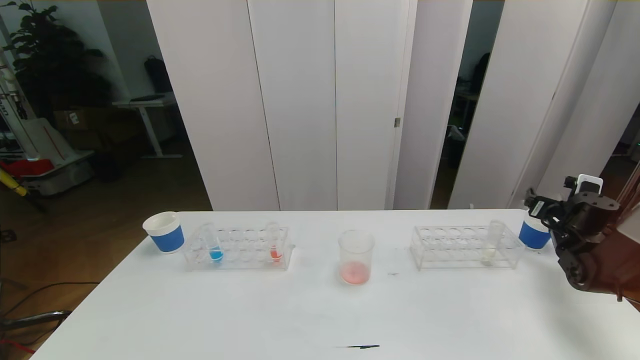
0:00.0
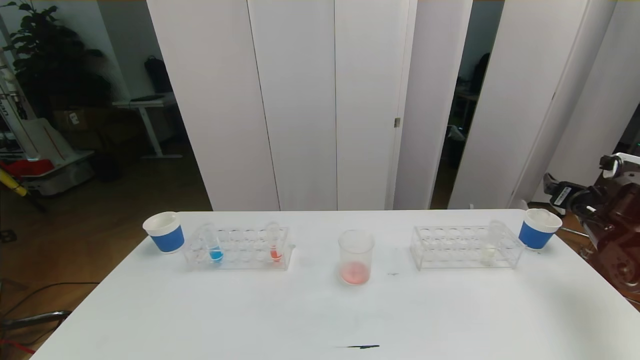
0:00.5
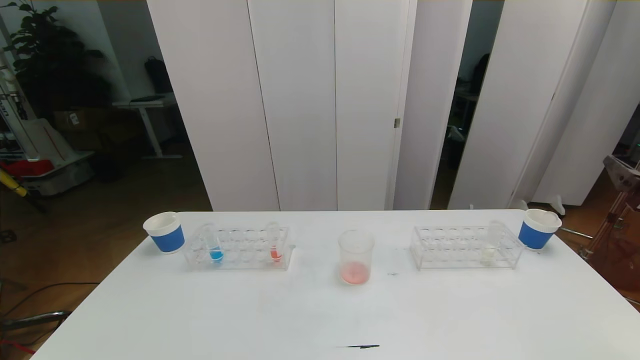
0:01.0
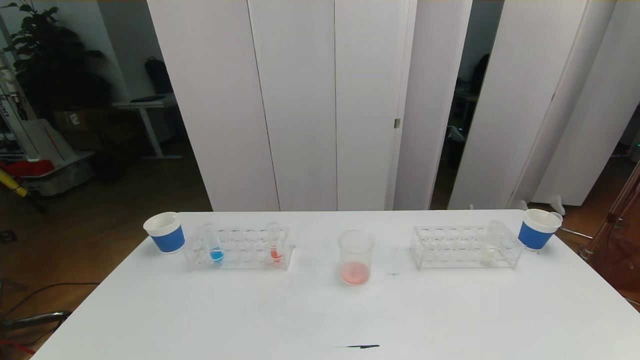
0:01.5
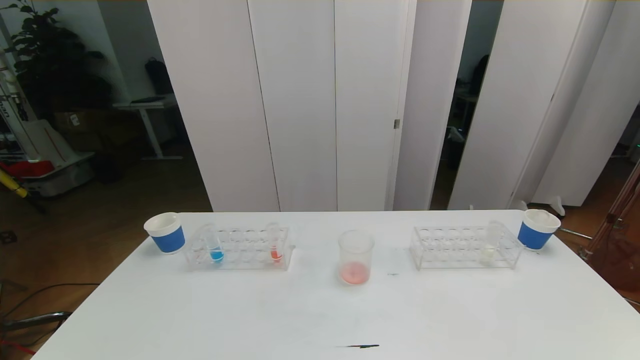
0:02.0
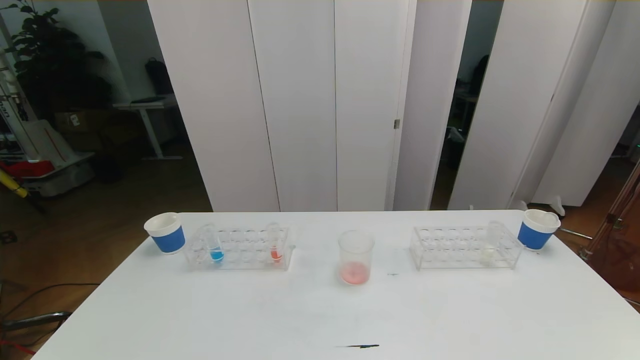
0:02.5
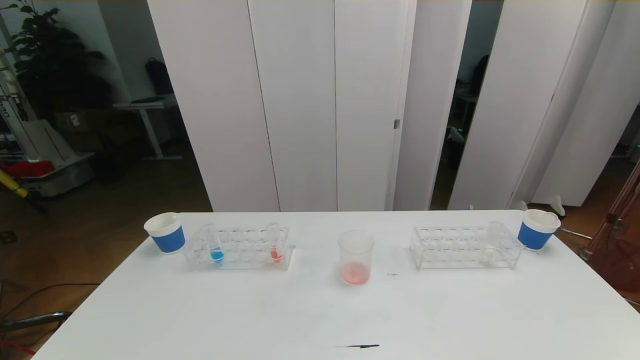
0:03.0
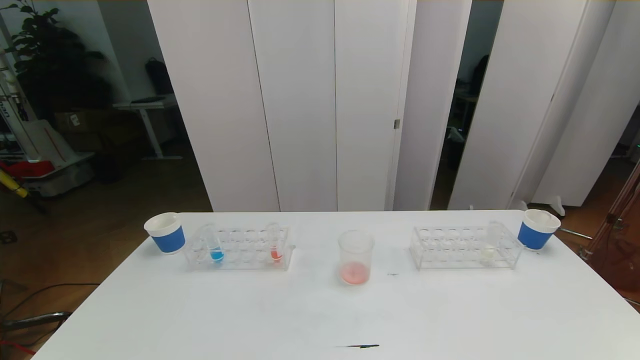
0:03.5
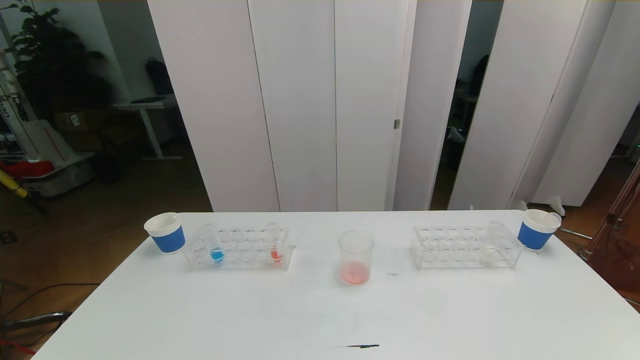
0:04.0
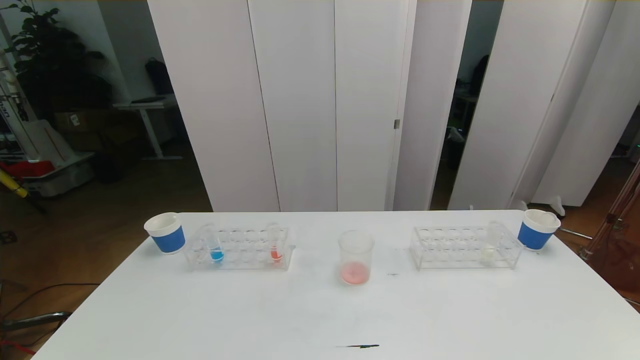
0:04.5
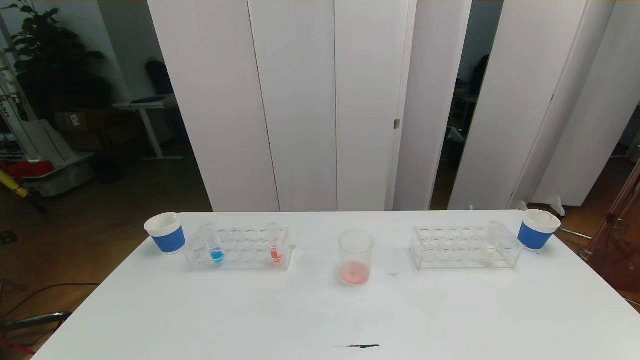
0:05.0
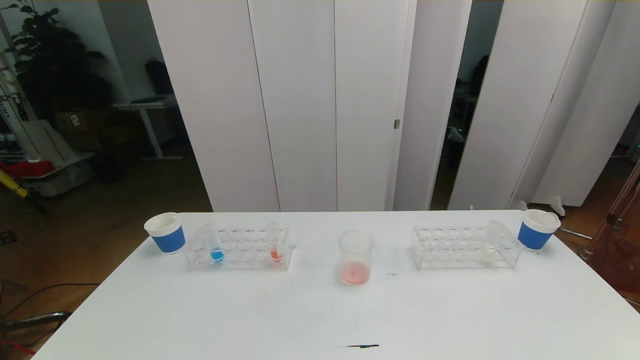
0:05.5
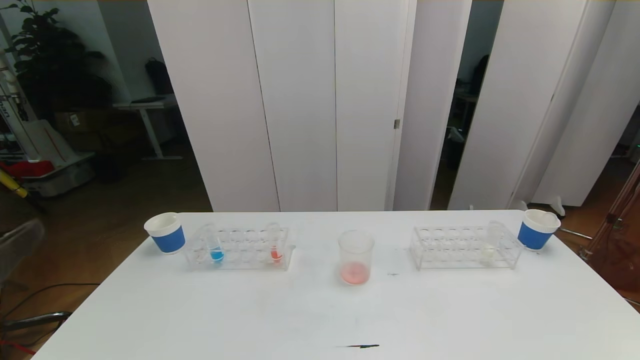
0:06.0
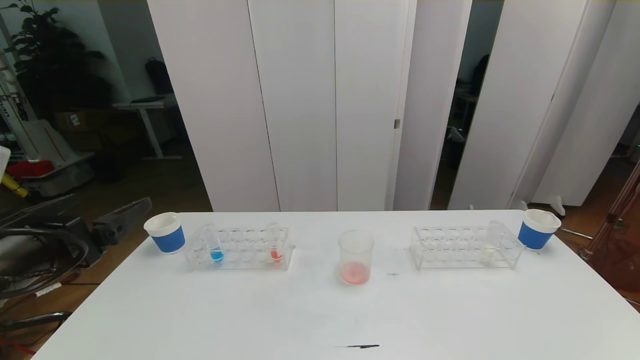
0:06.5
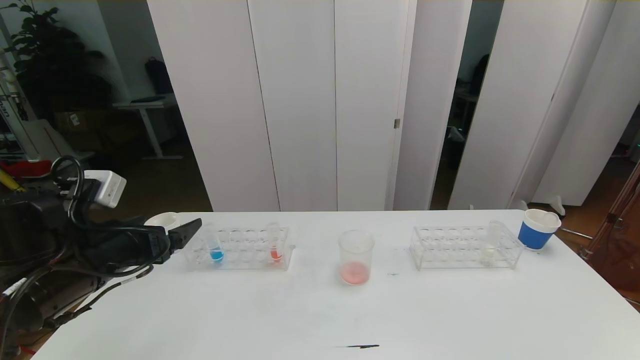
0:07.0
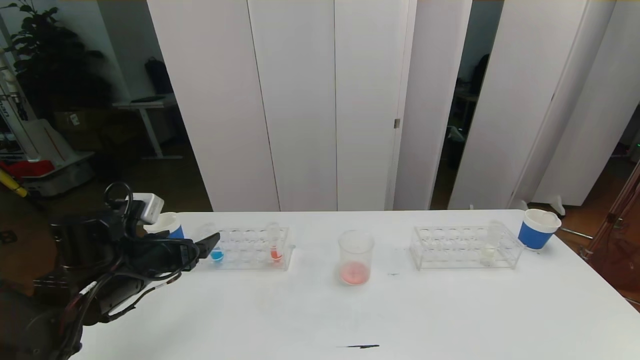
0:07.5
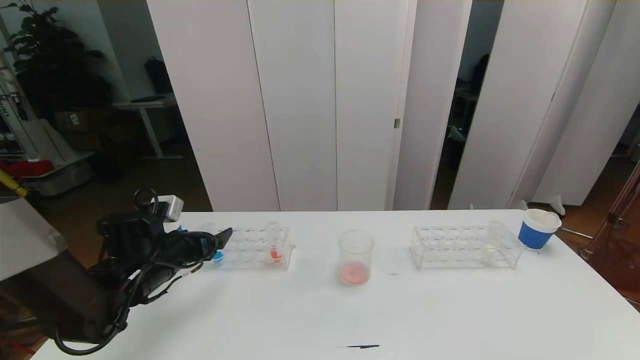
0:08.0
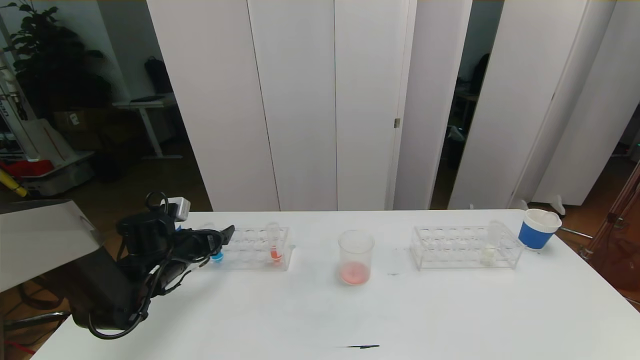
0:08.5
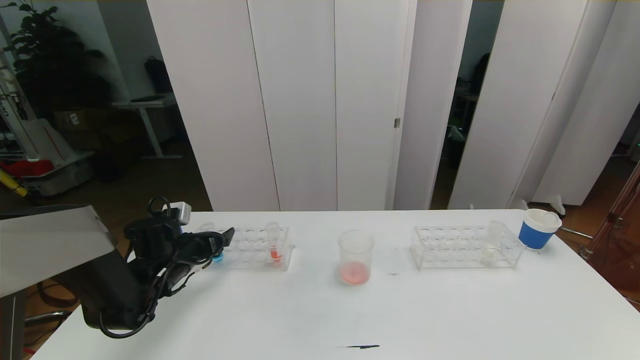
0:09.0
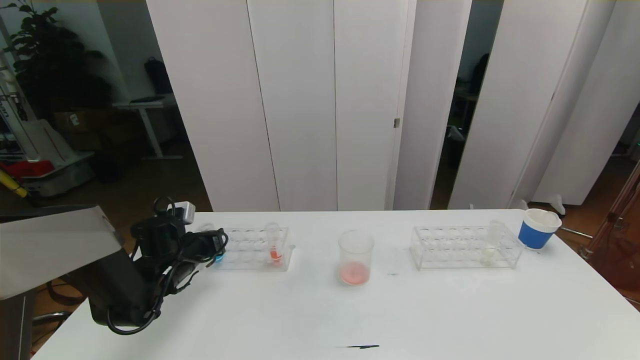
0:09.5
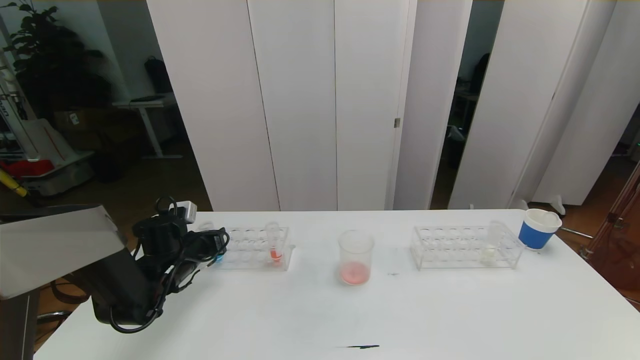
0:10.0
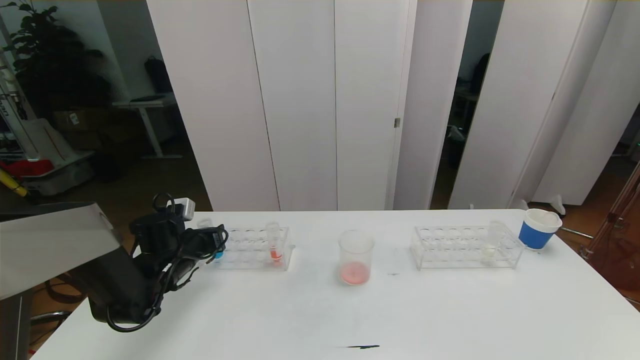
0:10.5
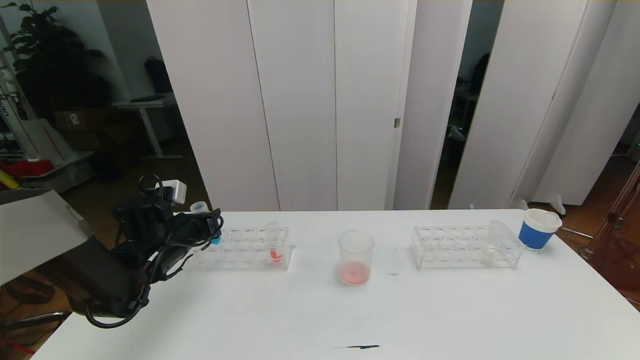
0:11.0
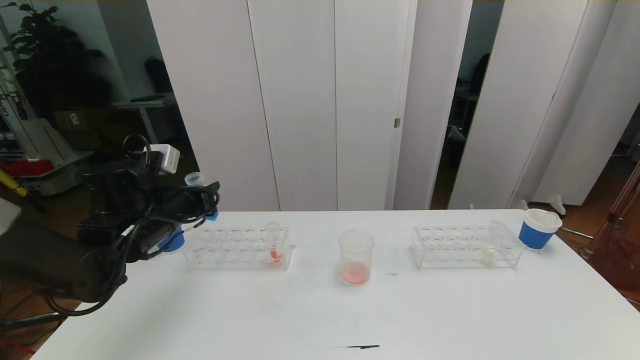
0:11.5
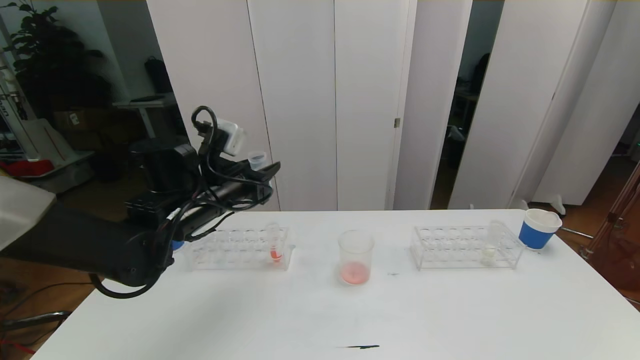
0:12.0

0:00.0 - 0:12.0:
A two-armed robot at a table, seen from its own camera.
Task of the whole recording: pick up the test tube with red pigment the test tube with blue pigment and the test tube with white pigment by grippers and pour them into the beaker.
Step, 0:00.0 - 0:04.0: Pour the red reagent into the graduated cylinder and place the test tube into the paper cup.
0:00.0 - 0:02.0: The right gripper heads backward, covering about 40 cm.
0:06.0 - 0:08.0: The left gripper travels forward and downward by some 30 cm.
0:08.0 - 0:10.0: The left gripper ends up about 5 cm from where it was, and closes.
0:10.0 - 0:12.0: The left gripper travels upward and to the right by roughly 20 cm.

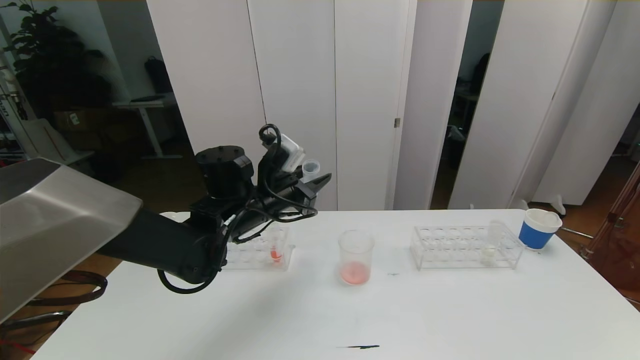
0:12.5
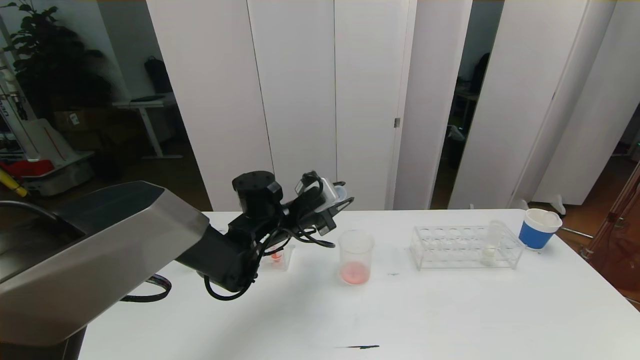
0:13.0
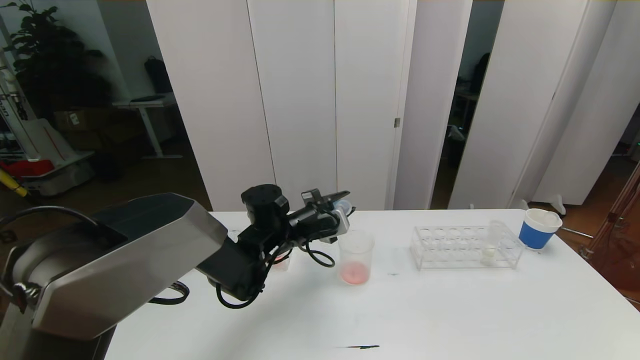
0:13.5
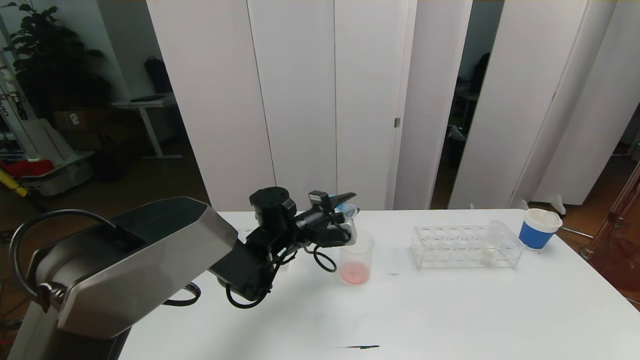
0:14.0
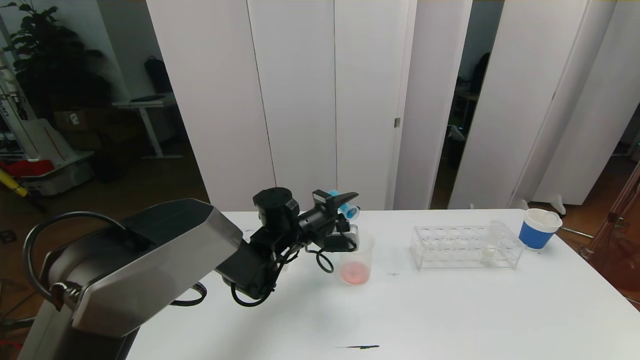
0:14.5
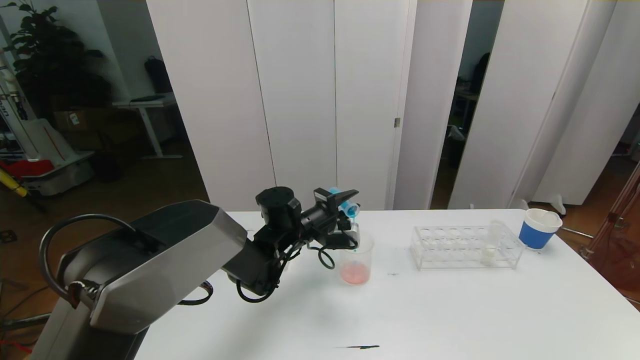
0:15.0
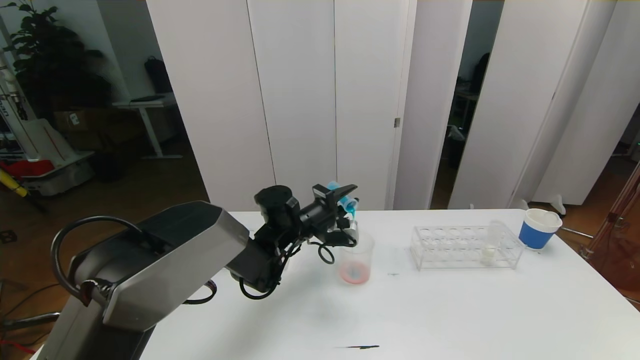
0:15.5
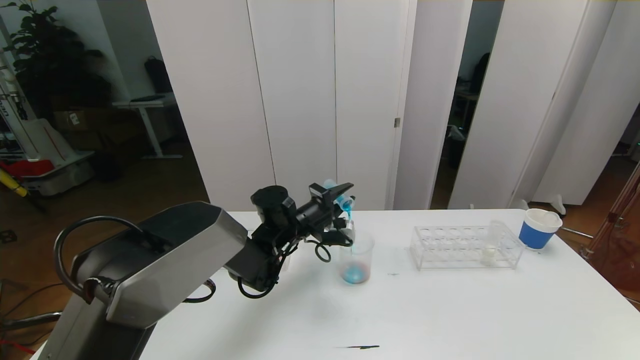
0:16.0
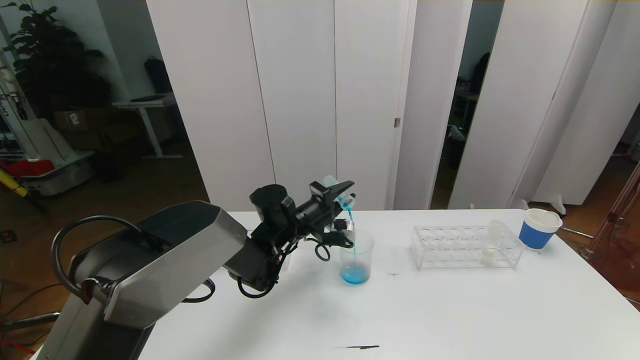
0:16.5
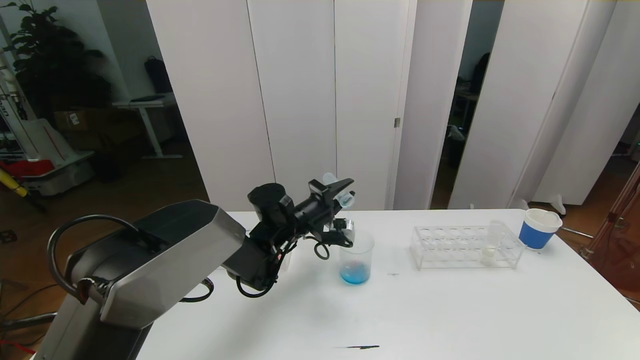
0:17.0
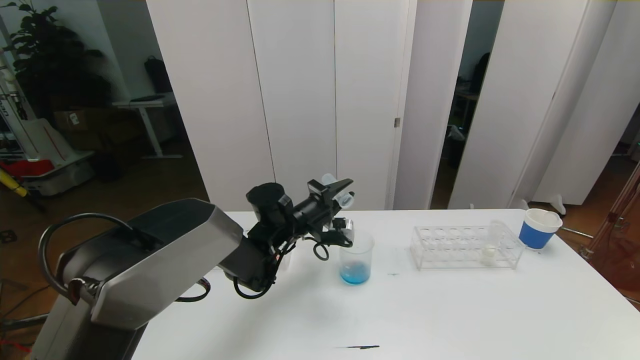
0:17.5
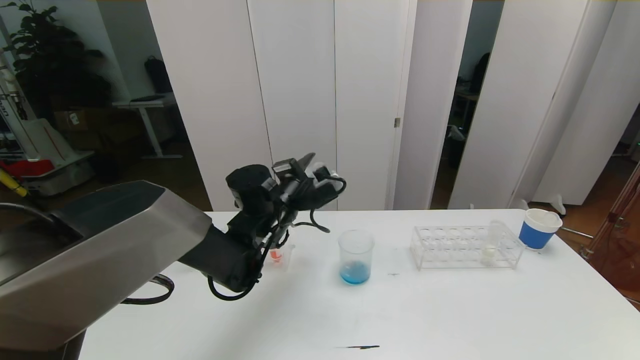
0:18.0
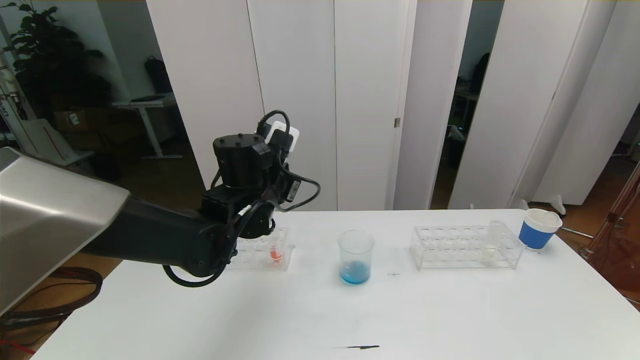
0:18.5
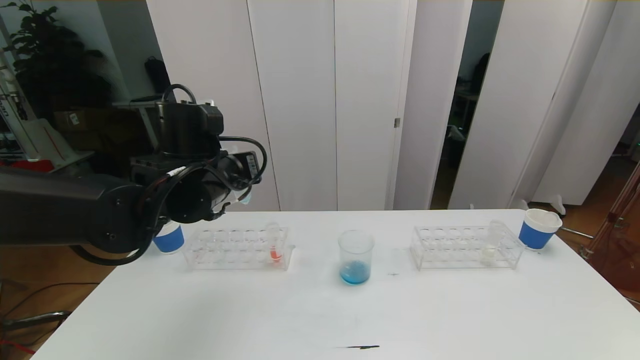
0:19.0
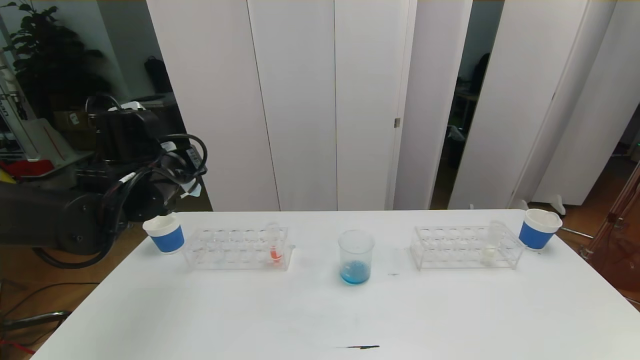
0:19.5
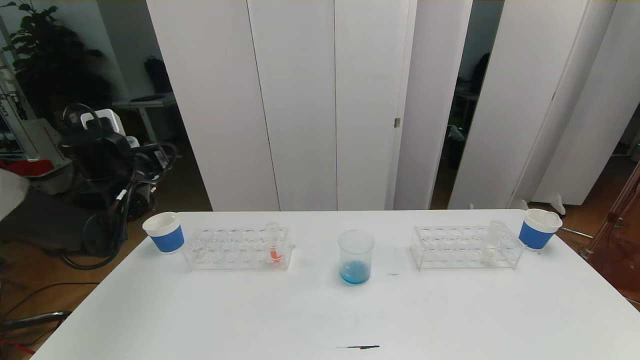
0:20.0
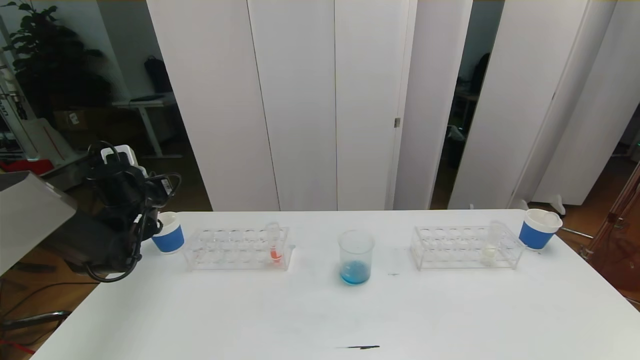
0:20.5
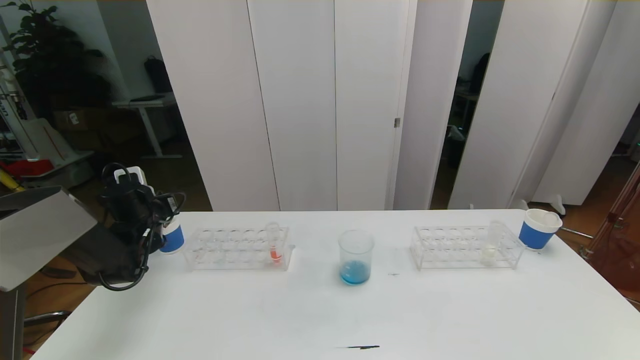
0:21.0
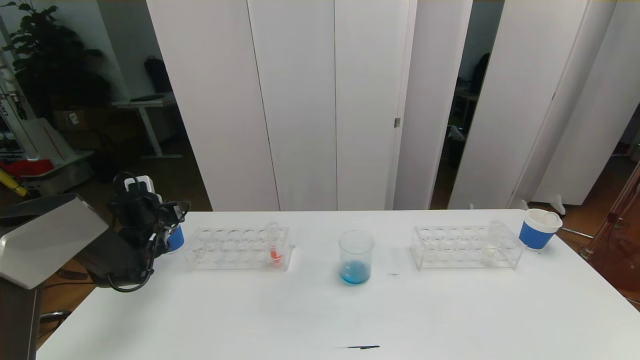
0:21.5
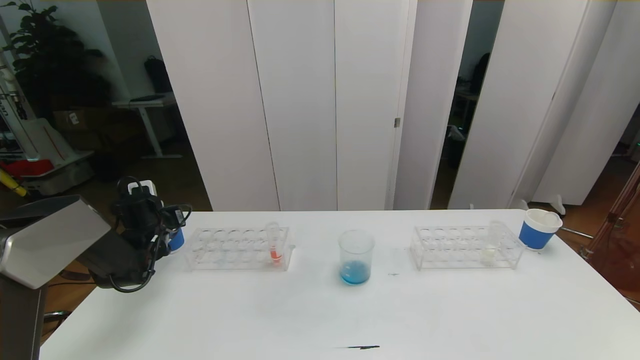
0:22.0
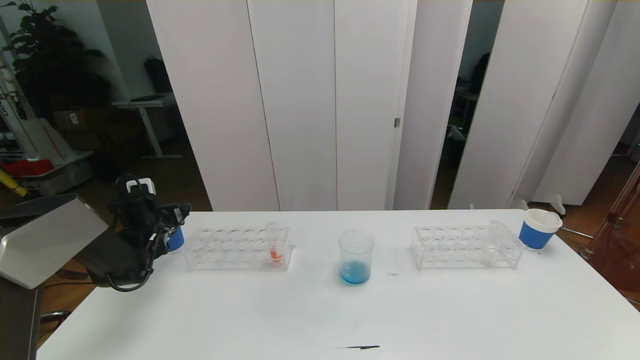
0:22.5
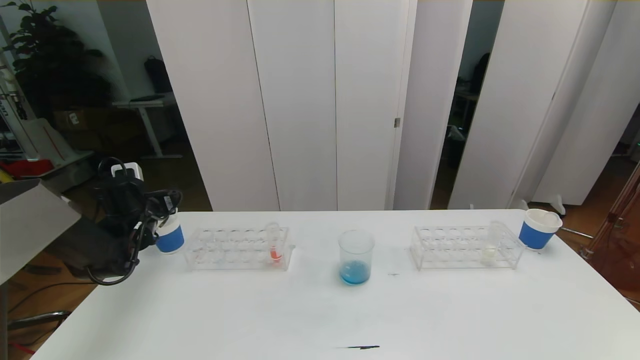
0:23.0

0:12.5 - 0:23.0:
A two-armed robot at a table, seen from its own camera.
Task of the whole recording: pick up the test tube with red pigment the test tube with blue pigment and the test tube with white pigment by grippers and pour them into the beaker.
0:12.5 - 0:14.5: The left gripper heads downward, covering about 10 cm.
0:14.5 - 0:16.5: The grippers make only small movements.
0:16.5 - 0:19.0: The left gripper heads upward, backward and to the left, covering about 20 cm.
0:19.0 - 0:21.0: The left gripper shifts some 25 cm to the left, downward and forward.
0:21.0 - 0:23.0: The left gripper opens.
